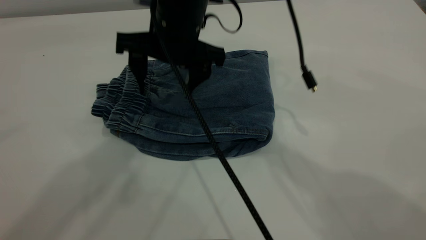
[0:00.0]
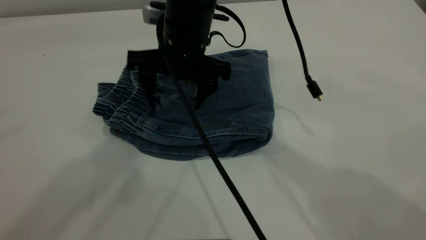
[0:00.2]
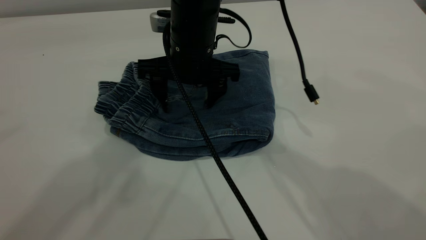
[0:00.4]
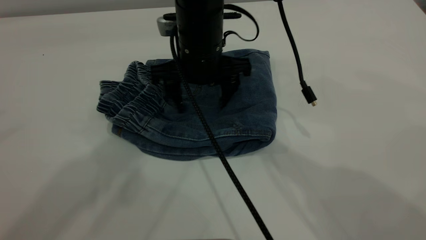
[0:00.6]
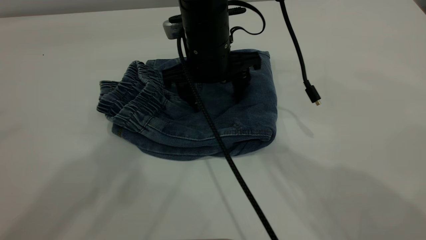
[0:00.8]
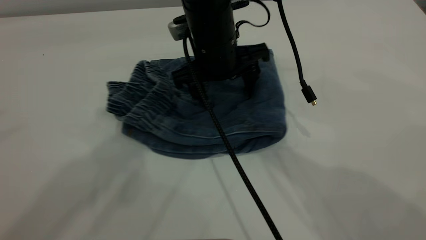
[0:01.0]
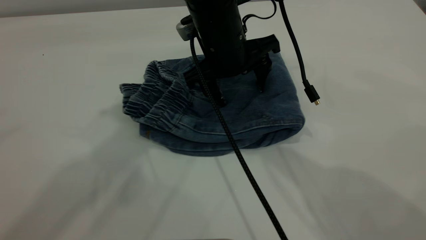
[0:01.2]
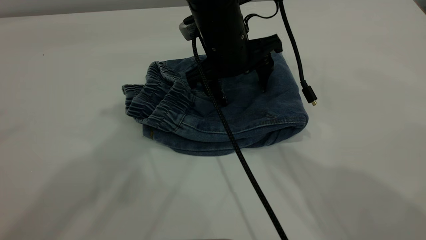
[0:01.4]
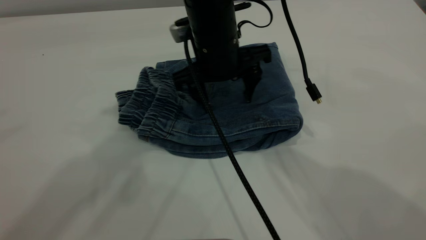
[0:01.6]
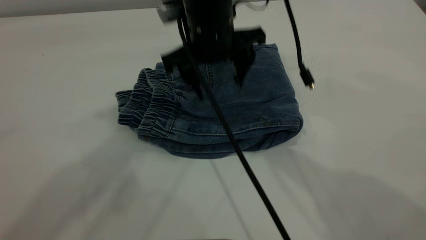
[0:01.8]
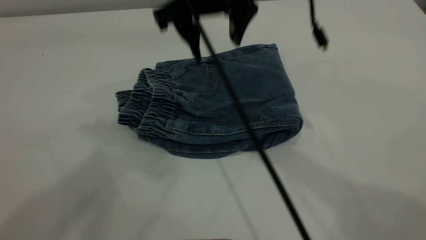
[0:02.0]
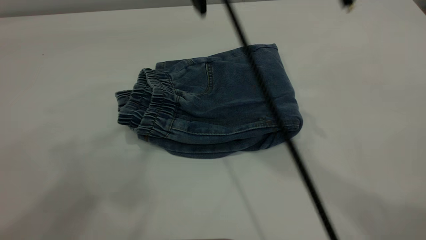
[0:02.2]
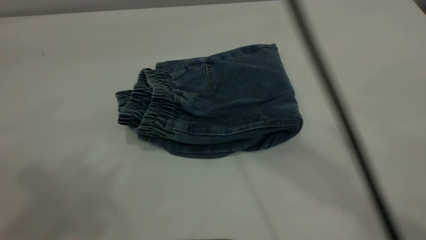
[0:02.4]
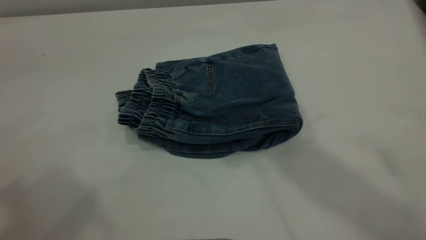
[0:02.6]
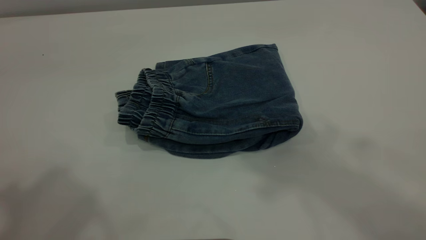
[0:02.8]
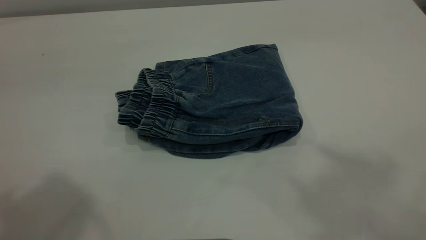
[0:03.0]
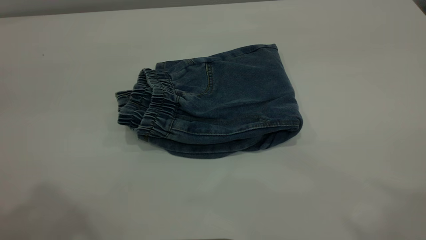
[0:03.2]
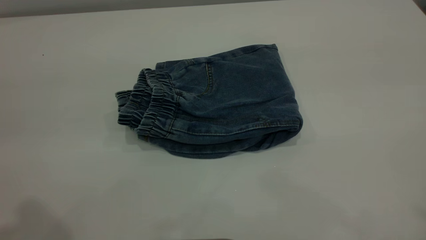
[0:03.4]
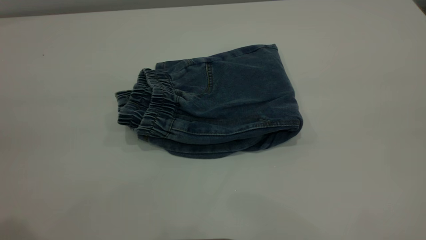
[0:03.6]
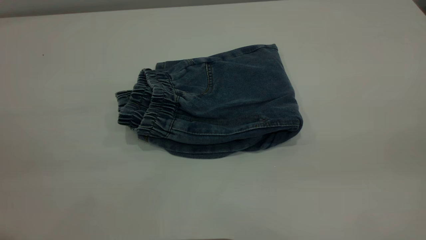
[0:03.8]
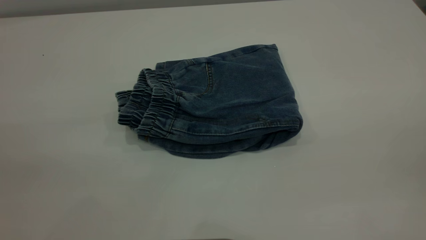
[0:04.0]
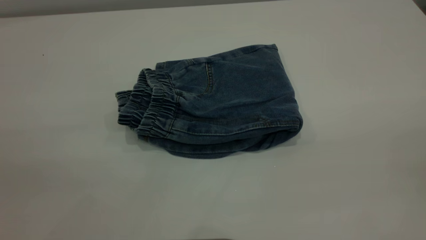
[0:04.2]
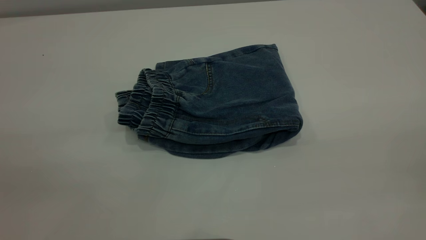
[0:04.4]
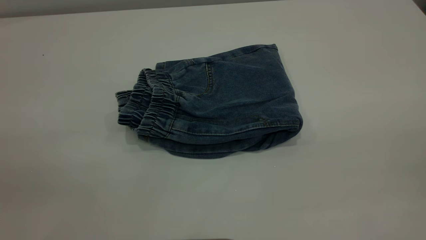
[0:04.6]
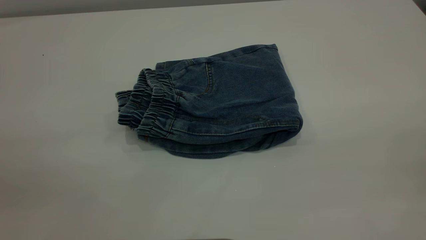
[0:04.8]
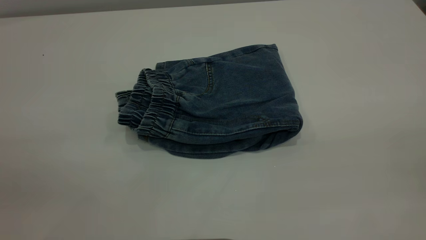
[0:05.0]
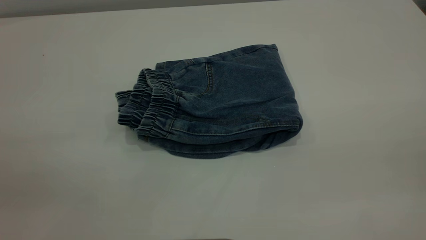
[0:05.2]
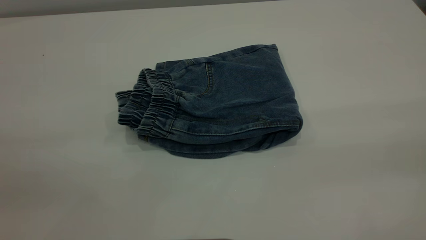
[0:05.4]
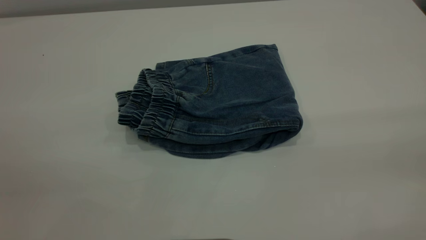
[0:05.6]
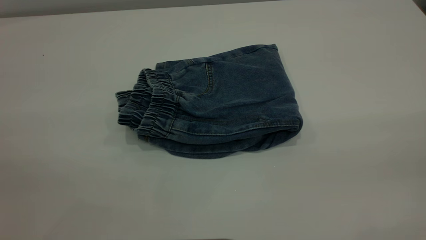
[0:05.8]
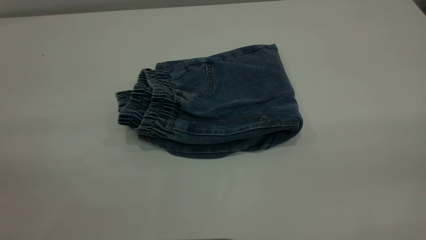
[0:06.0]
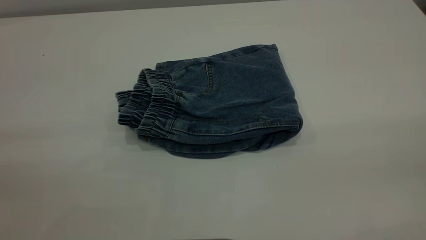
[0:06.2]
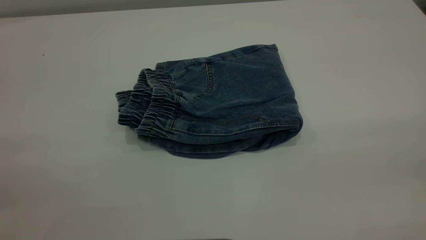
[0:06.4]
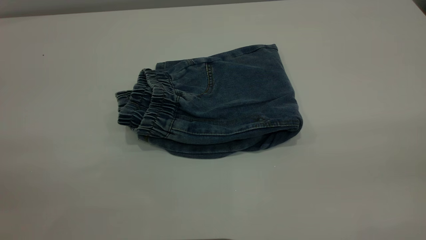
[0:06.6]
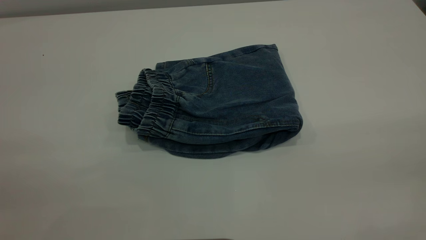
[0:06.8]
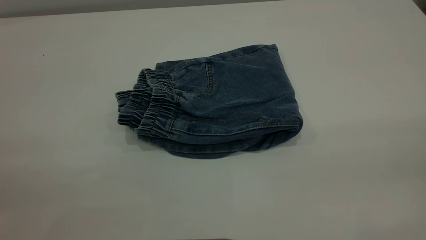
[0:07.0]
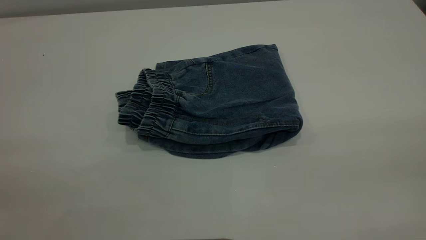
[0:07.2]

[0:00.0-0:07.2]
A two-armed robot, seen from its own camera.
0:00.0 to 0:01.4: The right gripper changes place by some 5 cm.
0:01.4 to 0:02.8: The left gripper shifts approximately 15 cm backward and to the left; the right gripper is displaced upward by roughly 40 cm.
